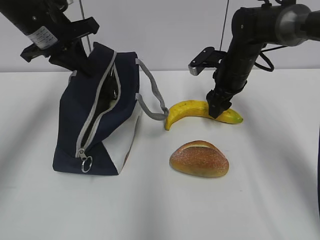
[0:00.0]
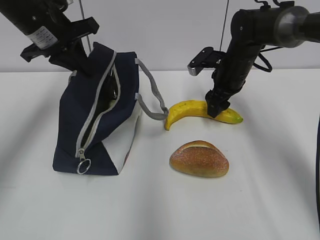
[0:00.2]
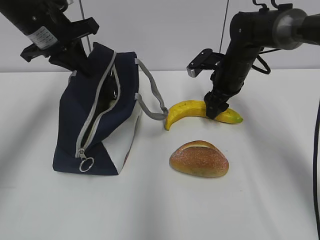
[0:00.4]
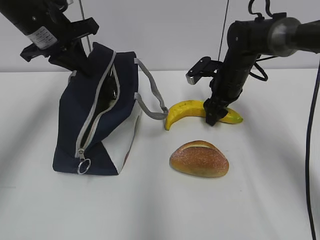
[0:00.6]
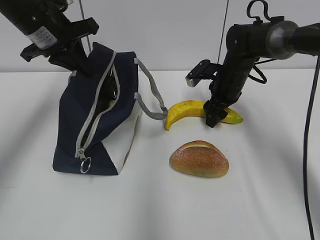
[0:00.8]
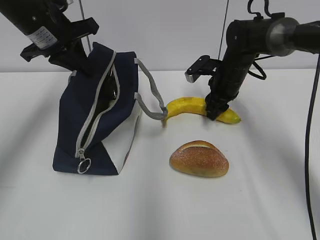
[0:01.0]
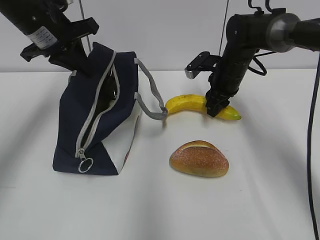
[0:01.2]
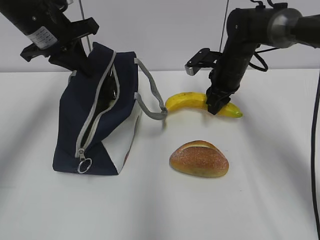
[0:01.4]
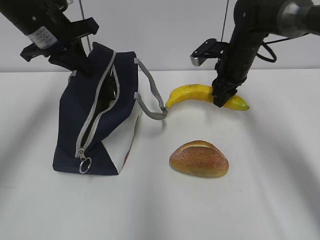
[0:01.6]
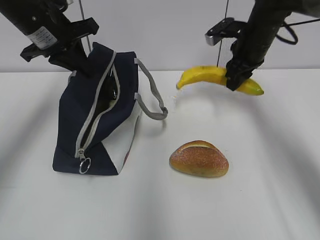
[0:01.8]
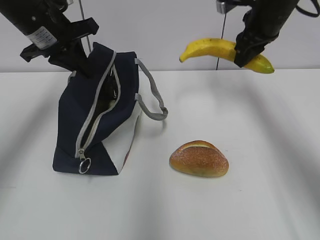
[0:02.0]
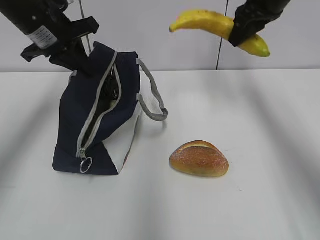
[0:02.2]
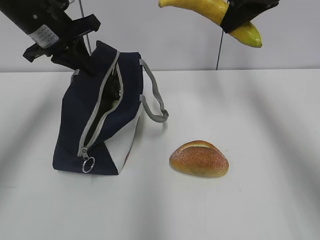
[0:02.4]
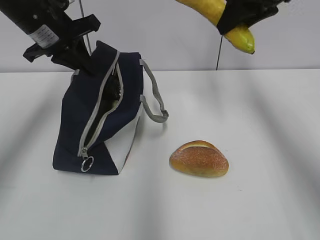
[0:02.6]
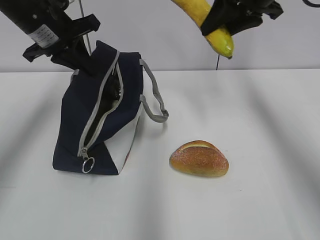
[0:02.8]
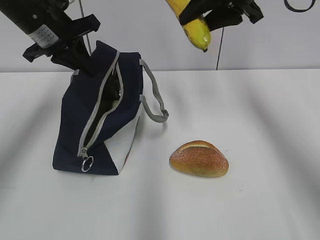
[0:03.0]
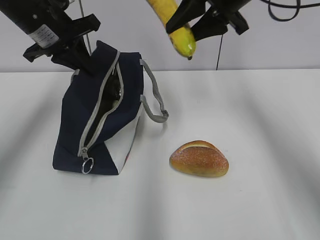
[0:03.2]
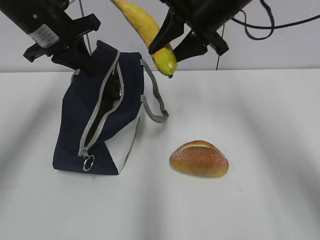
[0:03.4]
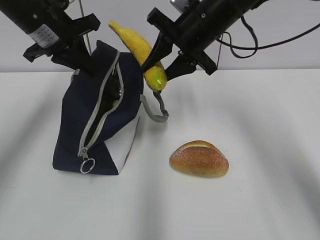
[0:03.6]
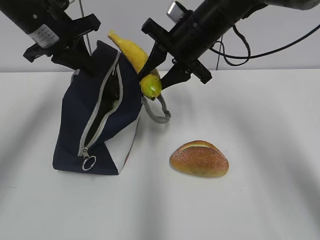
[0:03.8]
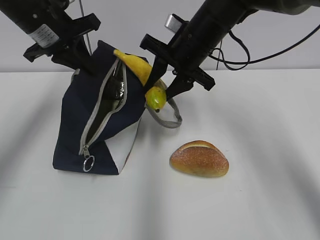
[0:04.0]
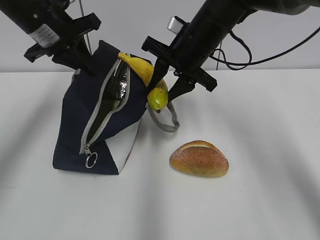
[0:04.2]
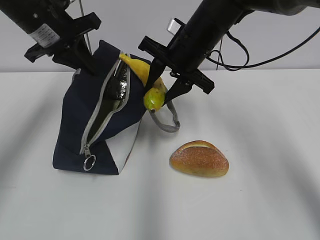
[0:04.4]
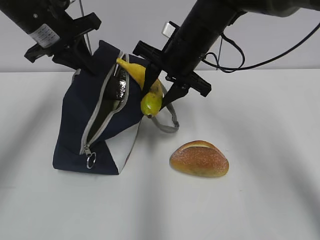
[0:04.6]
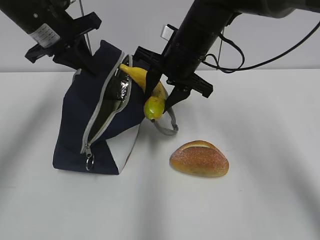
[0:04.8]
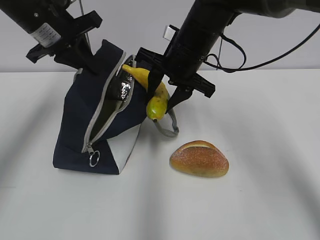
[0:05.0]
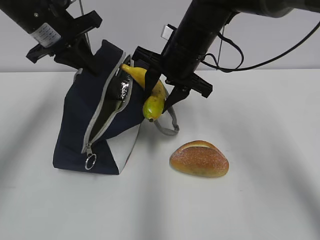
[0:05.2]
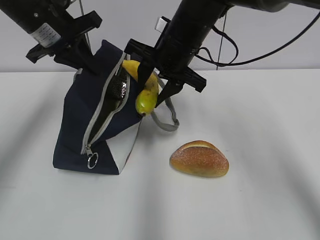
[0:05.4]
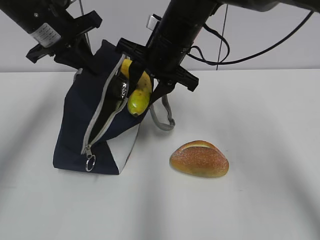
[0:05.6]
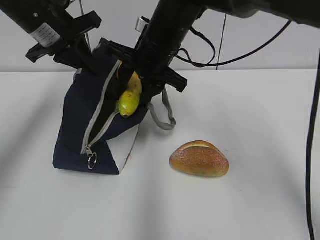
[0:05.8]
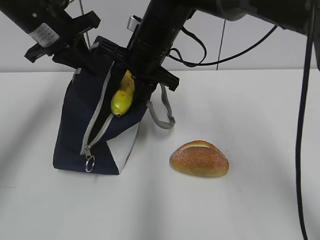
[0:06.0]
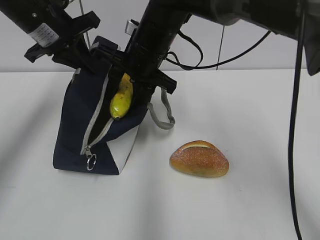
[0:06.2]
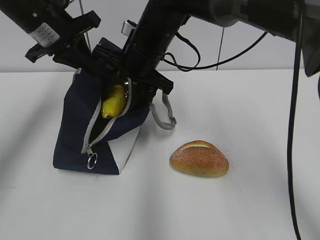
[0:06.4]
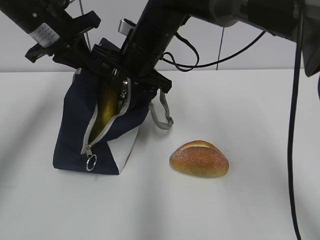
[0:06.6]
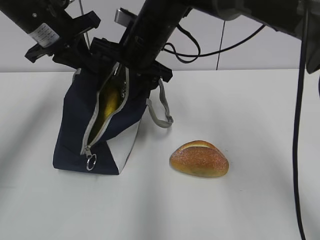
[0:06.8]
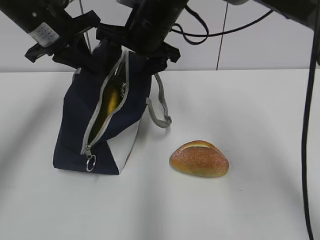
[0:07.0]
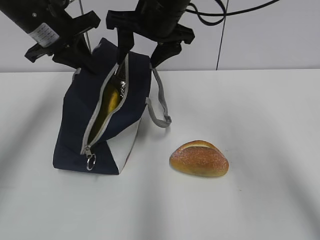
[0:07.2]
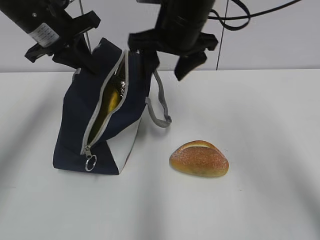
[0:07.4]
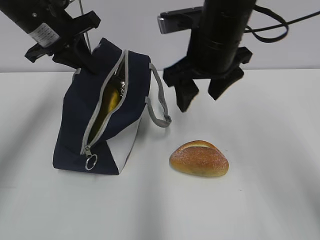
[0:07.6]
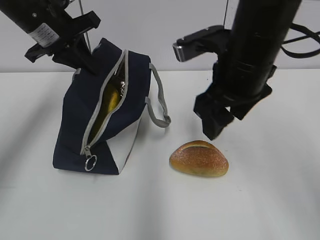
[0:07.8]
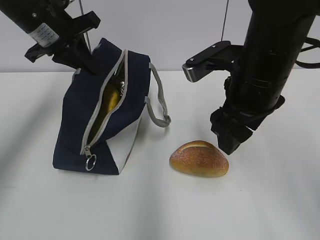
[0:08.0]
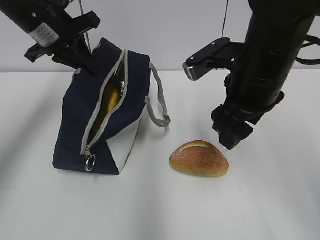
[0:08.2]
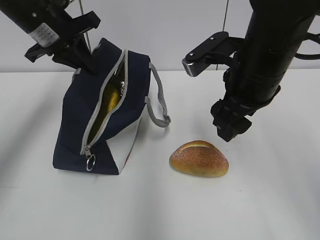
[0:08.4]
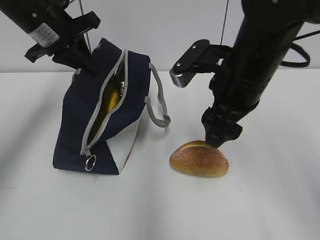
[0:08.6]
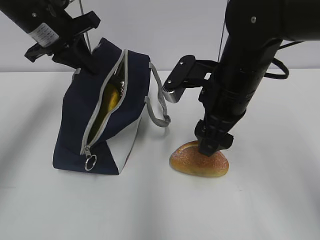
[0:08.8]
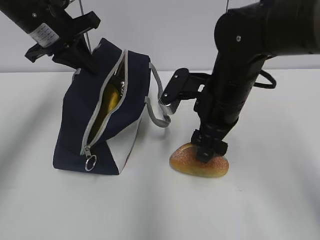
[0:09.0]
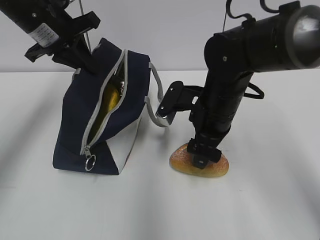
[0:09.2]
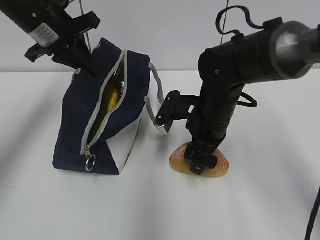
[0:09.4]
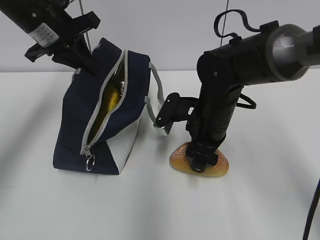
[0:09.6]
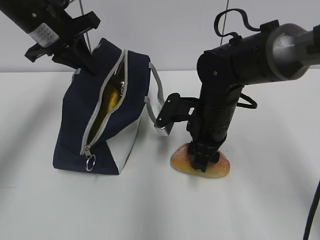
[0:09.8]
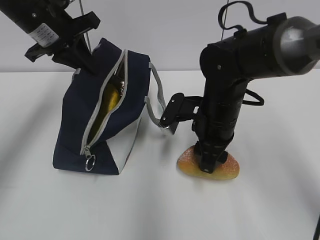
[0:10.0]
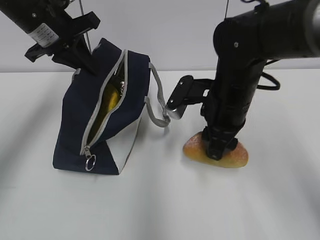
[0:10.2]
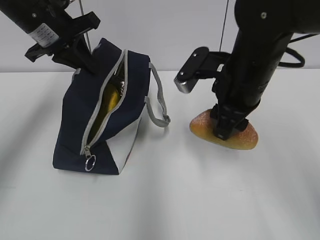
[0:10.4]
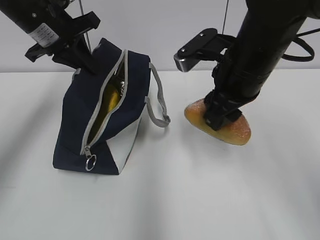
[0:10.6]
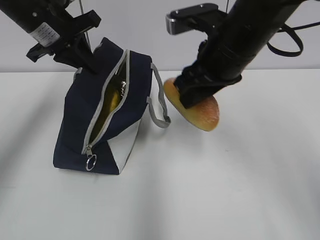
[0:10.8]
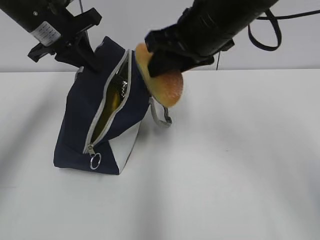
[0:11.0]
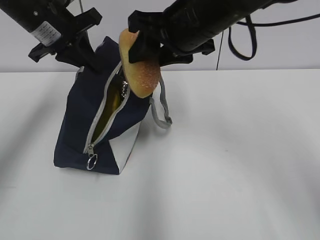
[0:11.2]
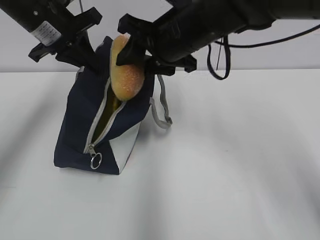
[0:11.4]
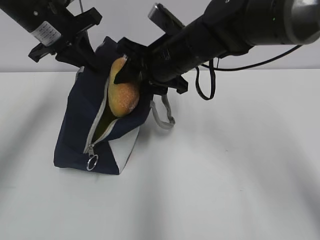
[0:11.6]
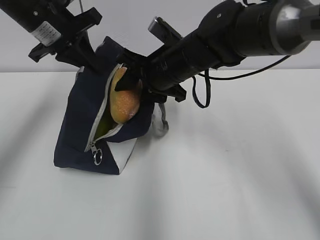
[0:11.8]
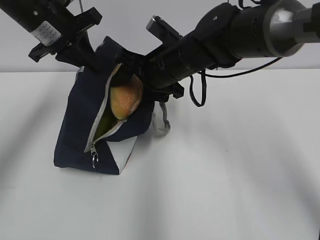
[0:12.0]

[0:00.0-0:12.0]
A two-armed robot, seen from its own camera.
Step, 0:01.4 to 0:06.6: Place it into the bag with your right hand.
Step, 0:06.8 to 0:09.8: Grab the bread with your right hand.
0:00.0 to 0:01.6: The right gripper closes up.
0:01.6 to 0:03.0: The right gripper travels upward and backward by some 20 cm.
0:03.0 to 0:04.4: The right gripper heads downward and to the left, covering approximately 15 cm.
0:04.4 to 0:06.0: The right gripper heads to the left, covering about 5 cm.
0:06.0 to 0:07.6: The right gripper travels to the right and backward by roughly 10 cm, and opens up.
0:07.6 to 0:09.0: The right gripper goes some 10 cm downward.
0:09.0 to 0:10.4: The right gripper travels downward and back again, roughly 5 cm each way, and closes.
0:10.4 to 0:12.0: The right gripper is displaced to the left and forward by approximately 10 cm, and moves roughly 10 cm upward and comes back.

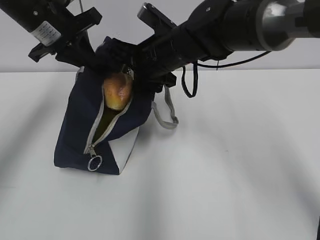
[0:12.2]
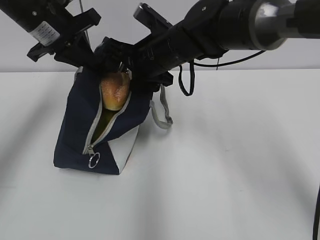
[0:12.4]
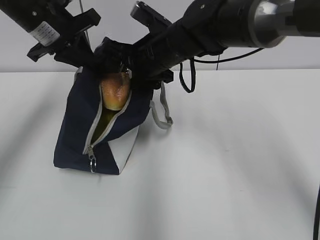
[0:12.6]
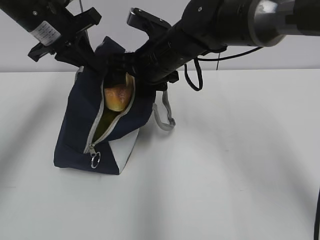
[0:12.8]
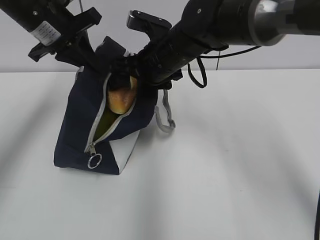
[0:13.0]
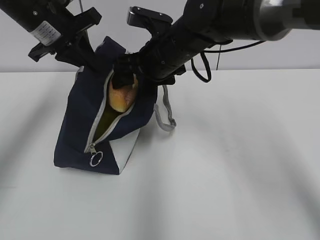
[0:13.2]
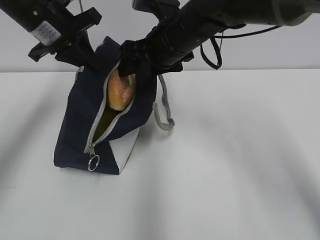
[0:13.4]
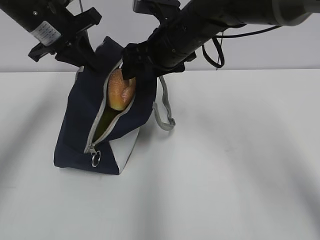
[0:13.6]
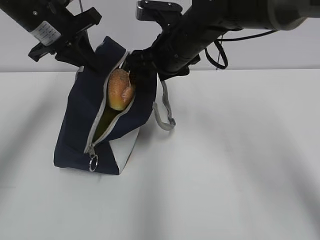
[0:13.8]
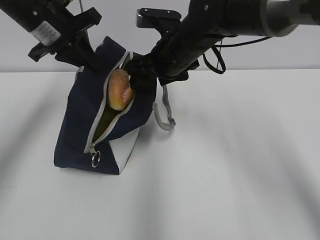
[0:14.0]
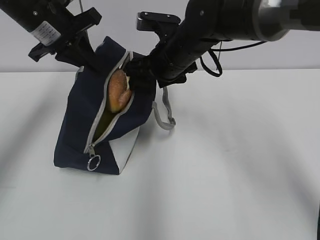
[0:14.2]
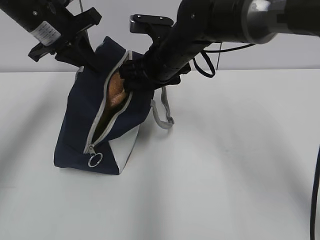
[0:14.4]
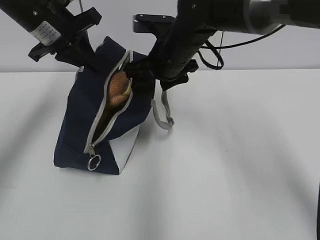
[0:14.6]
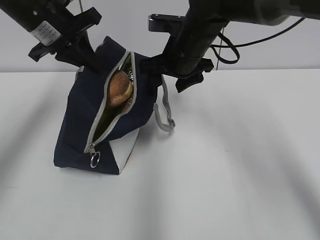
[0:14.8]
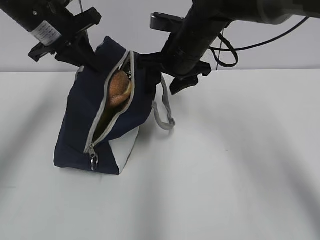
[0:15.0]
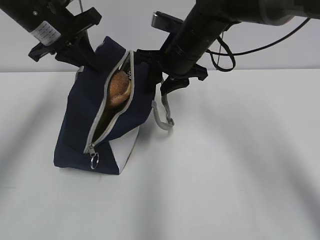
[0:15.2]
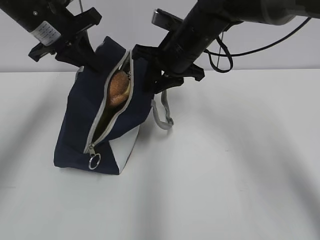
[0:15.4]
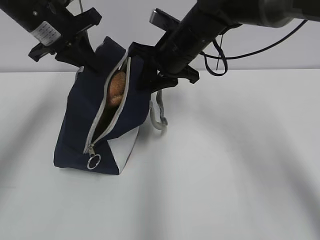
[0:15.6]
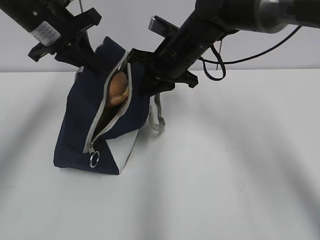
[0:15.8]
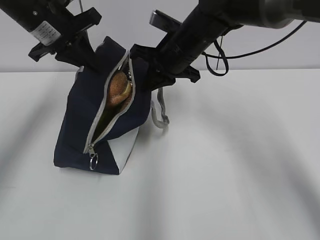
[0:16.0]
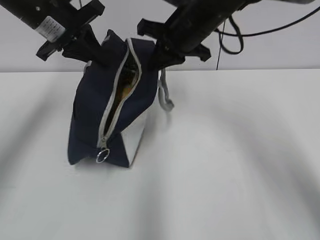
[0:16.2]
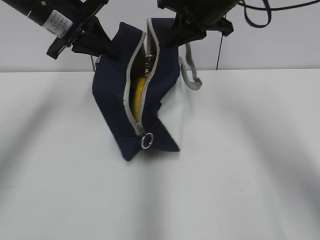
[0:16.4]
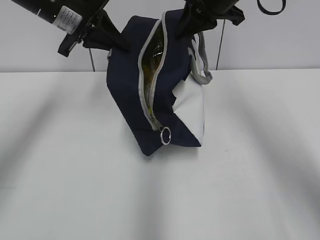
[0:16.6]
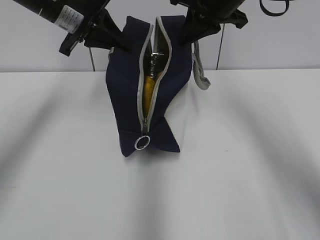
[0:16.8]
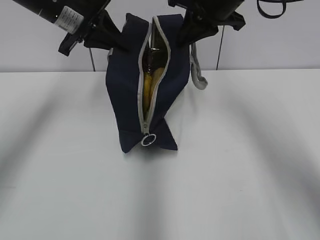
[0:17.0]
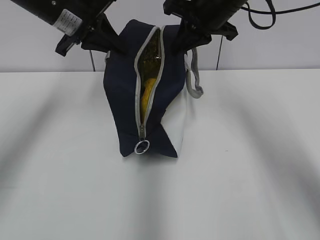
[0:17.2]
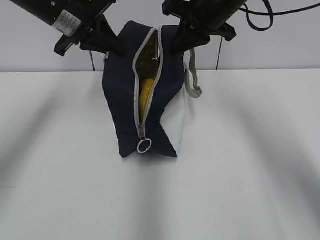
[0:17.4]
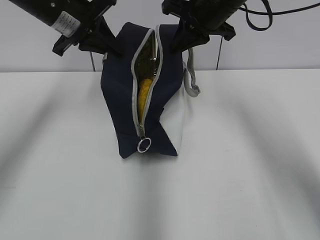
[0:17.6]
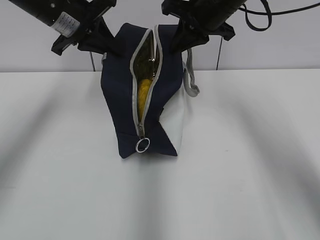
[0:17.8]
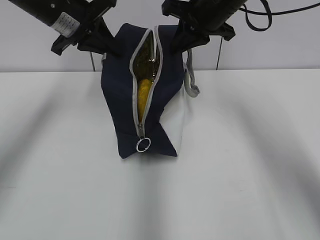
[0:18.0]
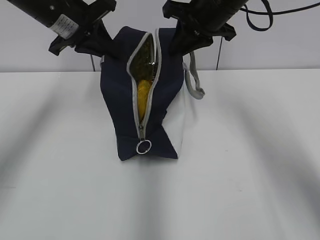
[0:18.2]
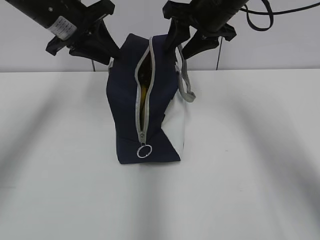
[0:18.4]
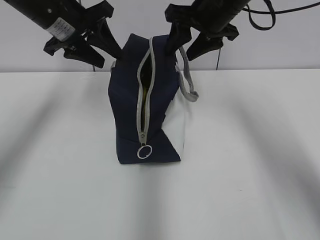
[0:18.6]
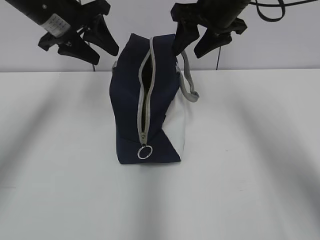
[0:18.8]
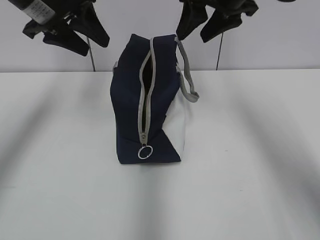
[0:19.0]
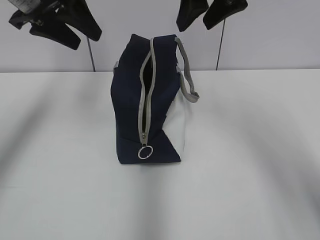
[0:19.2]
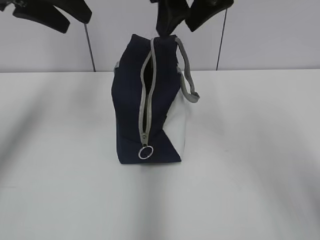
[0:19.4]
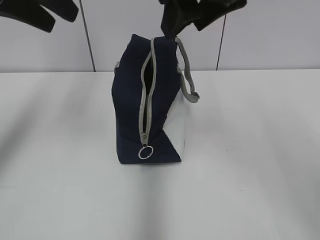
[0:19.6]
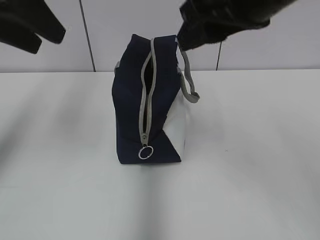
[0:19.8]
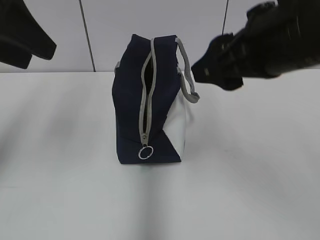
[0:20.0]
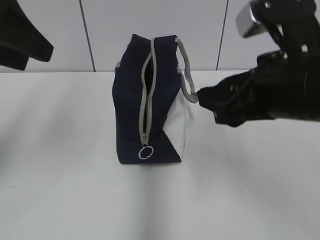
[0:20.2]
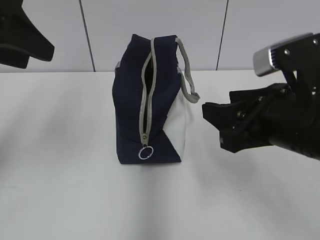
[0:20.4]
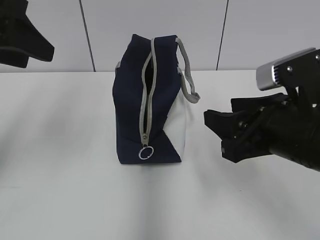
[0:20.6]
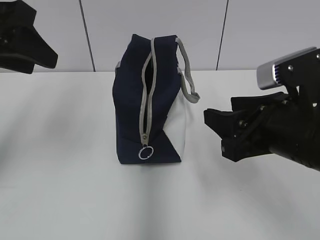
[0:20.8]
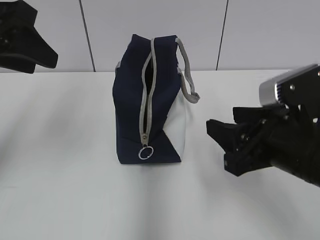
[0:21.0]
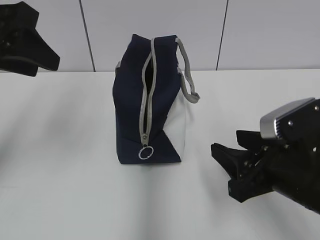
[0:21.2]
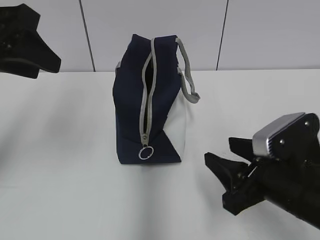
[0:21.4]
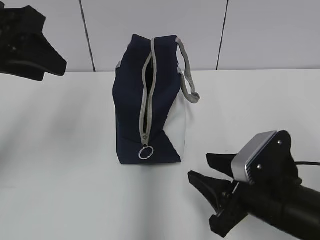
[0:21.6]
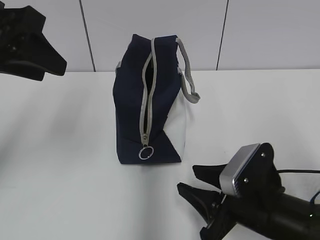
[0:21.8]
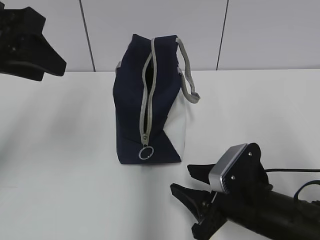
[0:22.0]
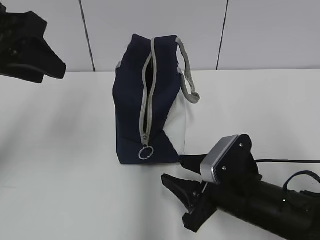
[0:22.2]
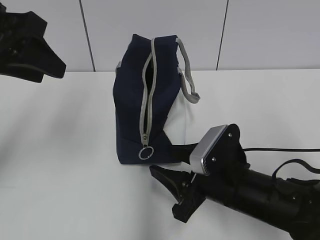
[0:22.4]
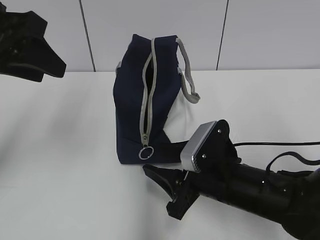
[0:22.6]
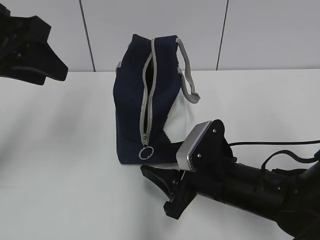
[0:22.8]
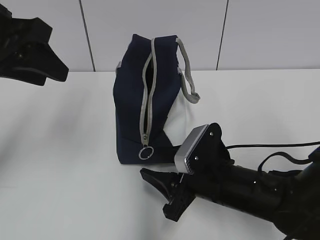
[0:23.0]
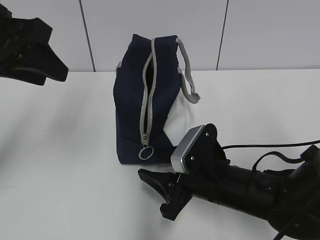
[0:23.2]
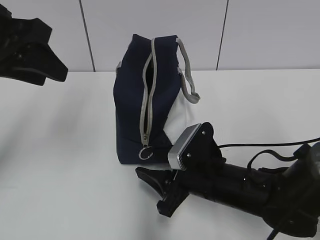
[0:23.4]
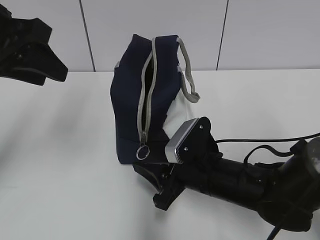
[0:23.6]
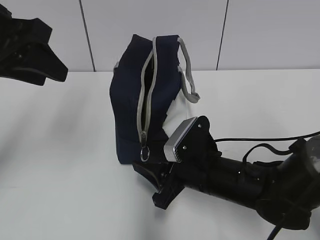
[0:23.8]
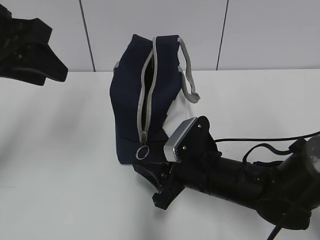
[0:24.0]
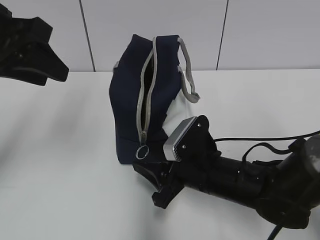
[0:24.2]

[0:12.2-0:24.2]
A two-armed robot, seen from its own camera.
Step, 0:13.4 to 0:16.0: Grab the lunch bag with your right hand.
Step, 0:16.2 to 0:18.4: Move the lunch bag to the right.
0:13.8 to 0:15.2: The right gripper closes.
0:15.2 to 0:16.6: The right gripper moves upward and to the right, some 10 cm, and closes.
0:16.6 to 0:18.2: There are only small adjustments of the grippers.
0:18.2 to 0:19.8: The two grippers go some 15 cm backward and upward. The left gripper opens. Meanwhile the right gripper opens up.
0:19.8 to 0:21.2: The right gripper travels downward by about 20 cm.
0:21.2 to 0:22.6: The right gripper shifts some 10 cm downward and to the left.
0:22.6 to 0:24.2: The grippers stay close to where they were, moving slightly.
